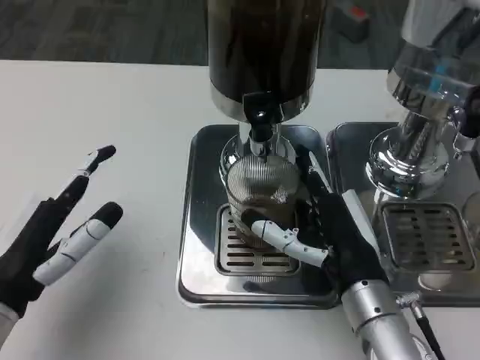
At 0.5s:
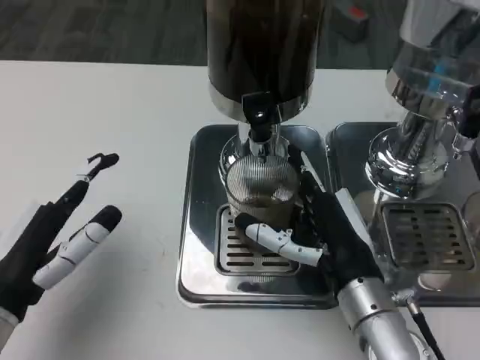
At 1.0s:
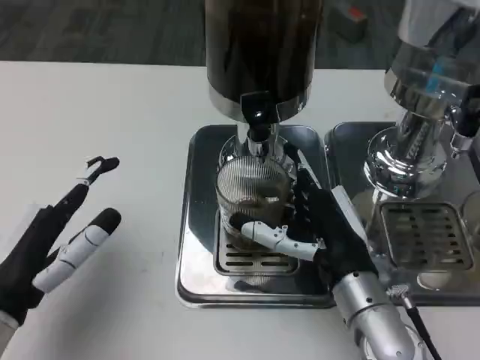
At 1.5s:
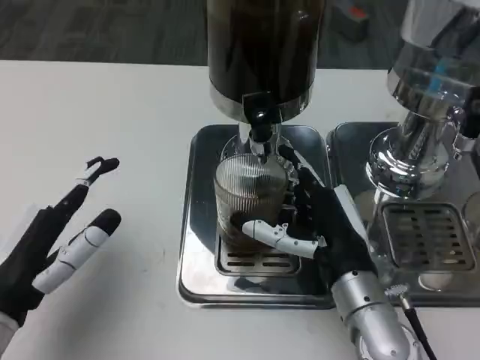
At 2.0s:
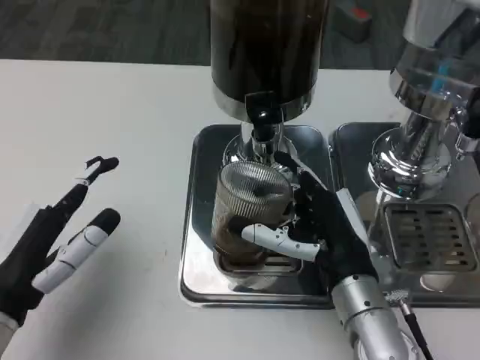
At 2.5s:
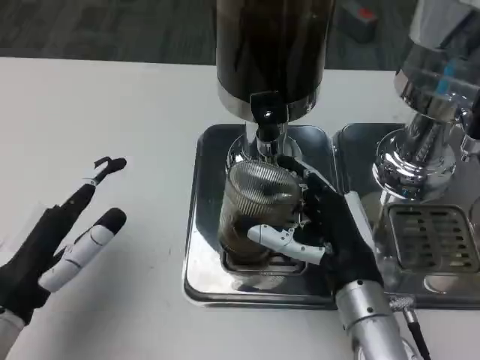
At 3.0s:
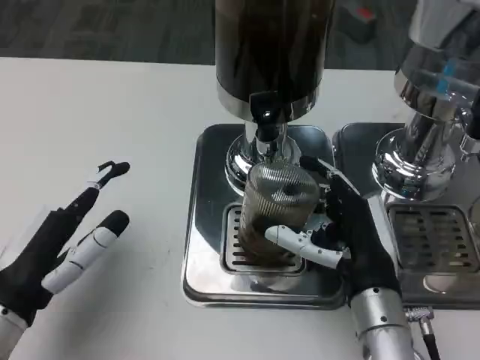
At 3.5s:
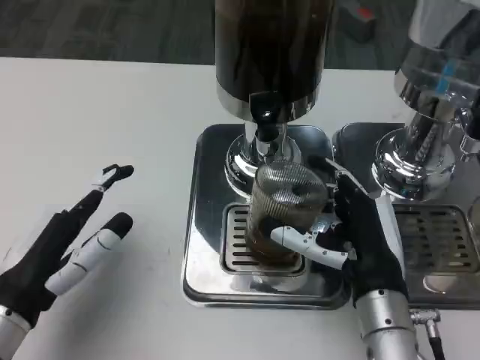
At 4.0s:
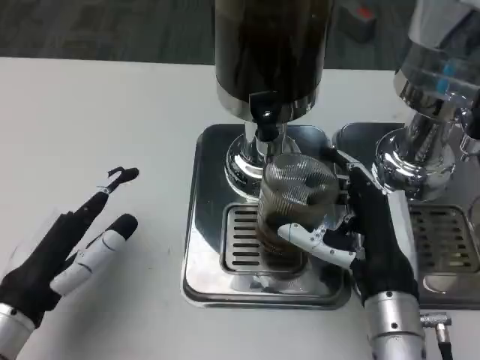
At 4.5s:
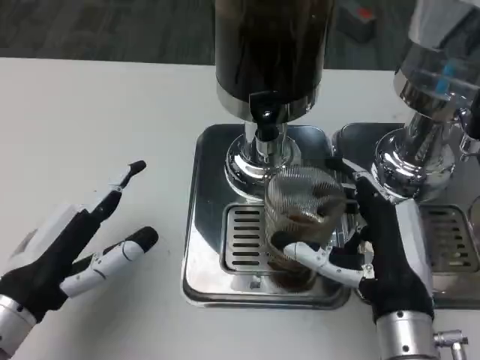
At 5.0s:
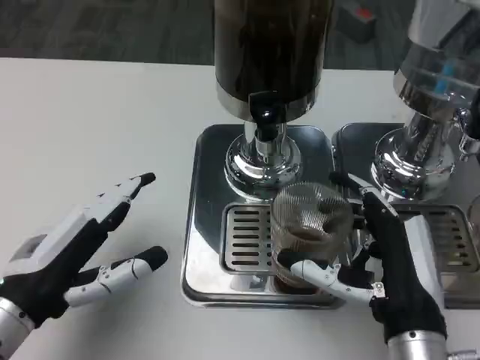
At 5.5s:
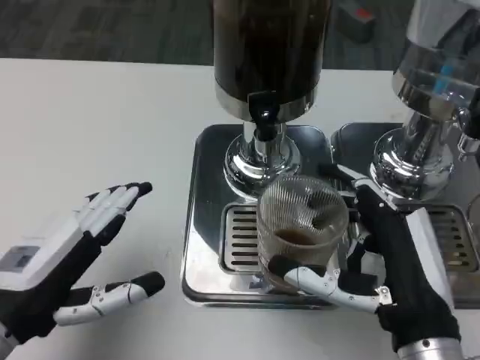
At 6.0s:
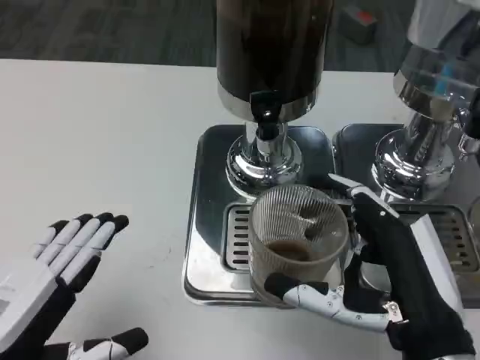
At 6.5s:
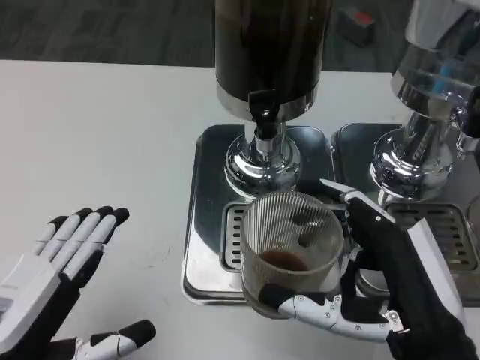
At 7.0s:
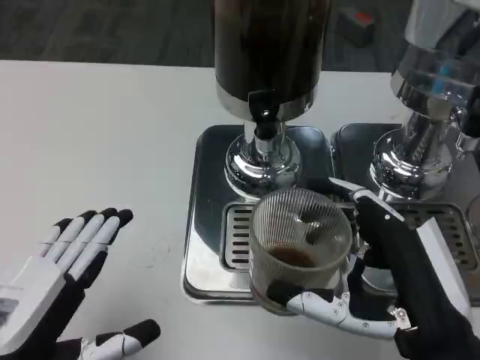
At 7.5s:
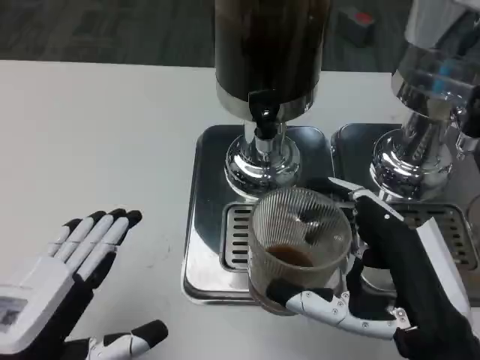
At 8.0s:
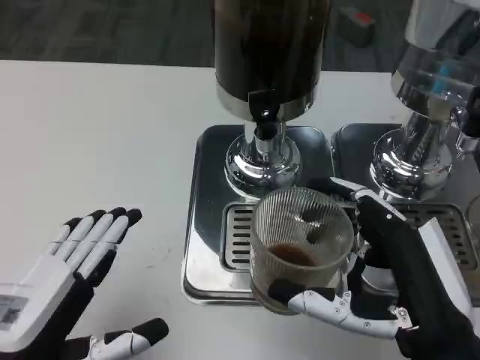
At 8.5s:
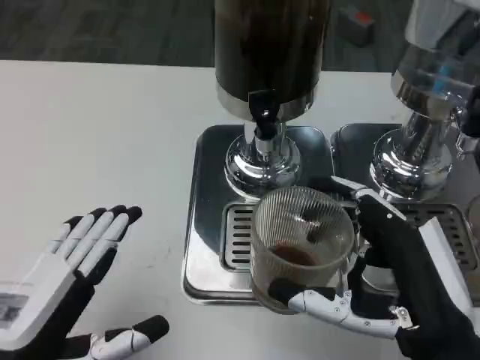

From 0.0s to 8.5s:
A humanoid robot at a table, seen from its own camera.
Task of the whole recording: Grasp the cup under the faucet to collect the drink, then remove the cup.
From 0.0s to 2.0s: Both hands stay put.
From 4.0s to 6.5s: The left hand goes some 10 cm backward. Meanwhile the right hand goes approximately 10 cm backward and upward.
From 6.5s to 8.5s: Neither hand changes place.

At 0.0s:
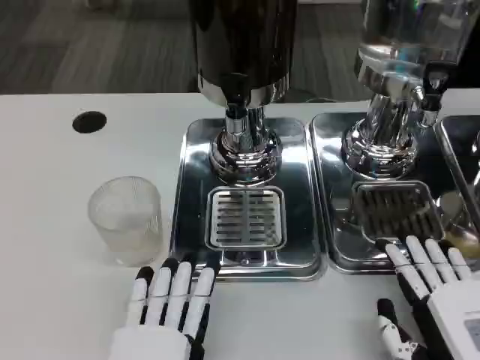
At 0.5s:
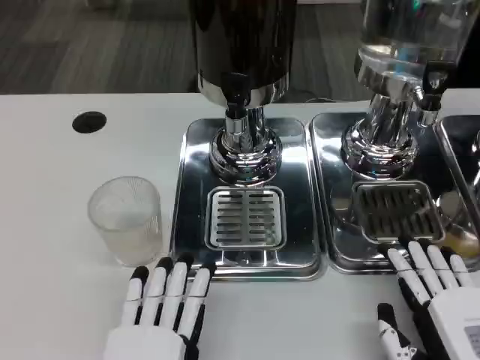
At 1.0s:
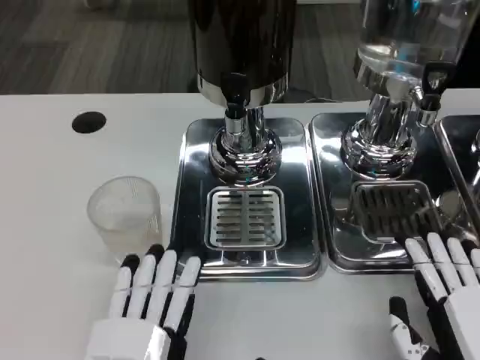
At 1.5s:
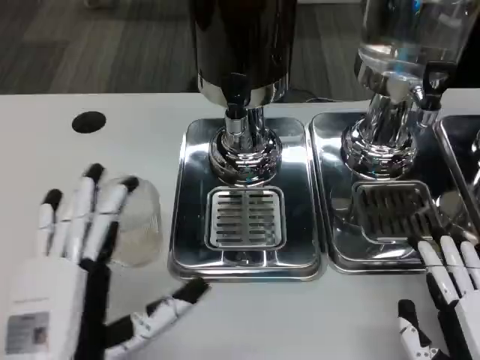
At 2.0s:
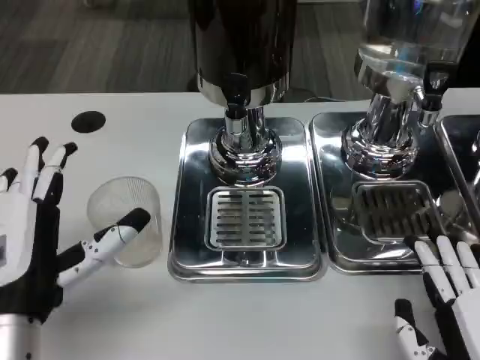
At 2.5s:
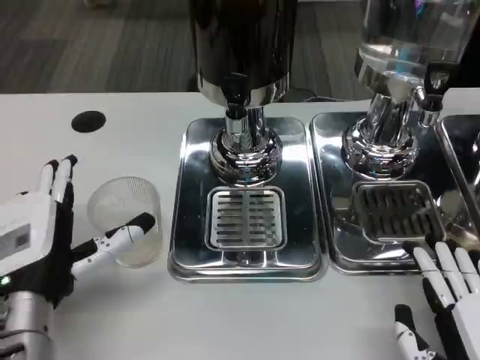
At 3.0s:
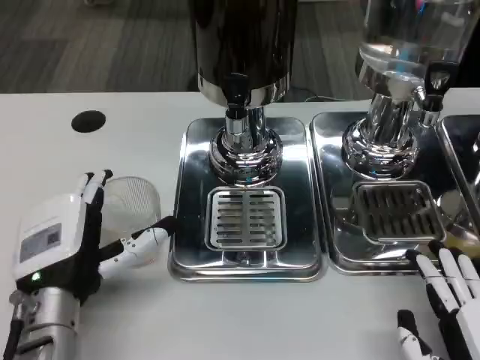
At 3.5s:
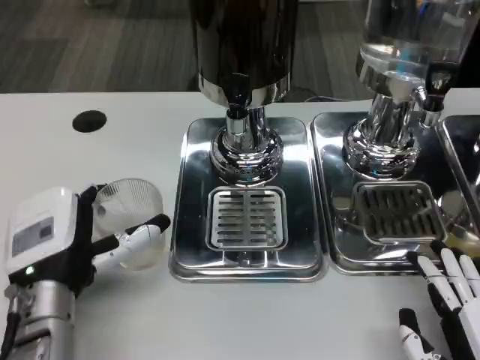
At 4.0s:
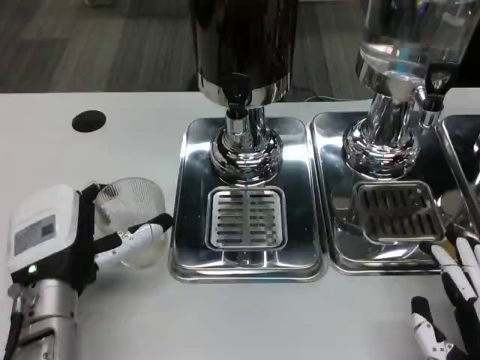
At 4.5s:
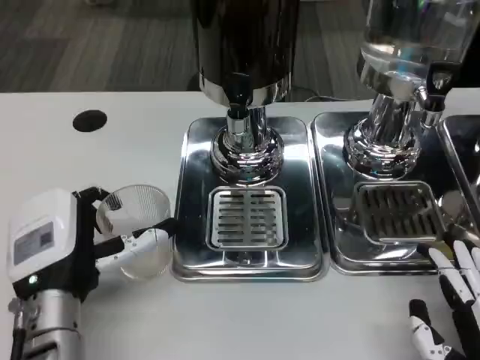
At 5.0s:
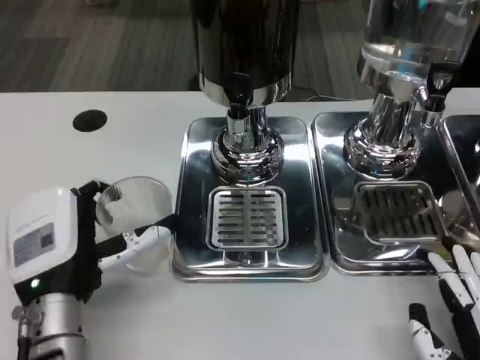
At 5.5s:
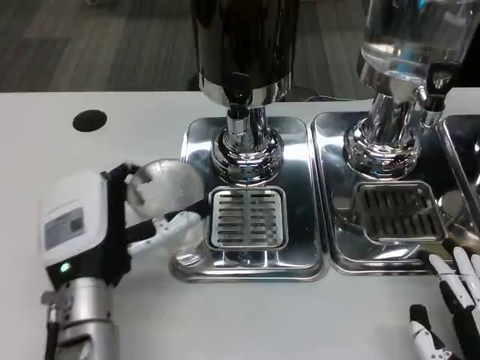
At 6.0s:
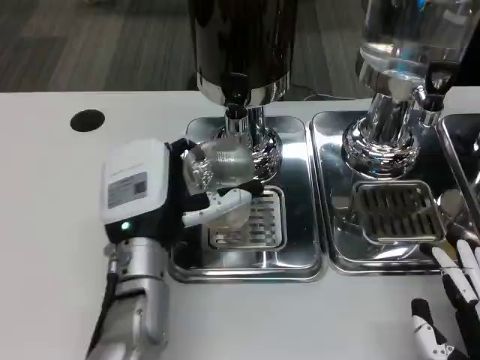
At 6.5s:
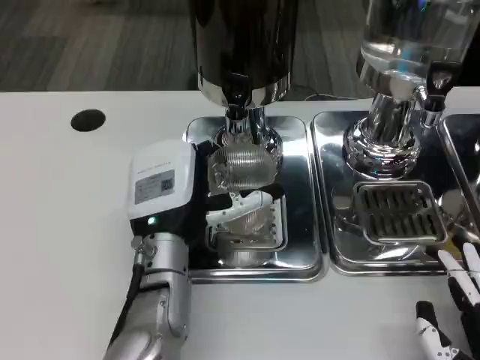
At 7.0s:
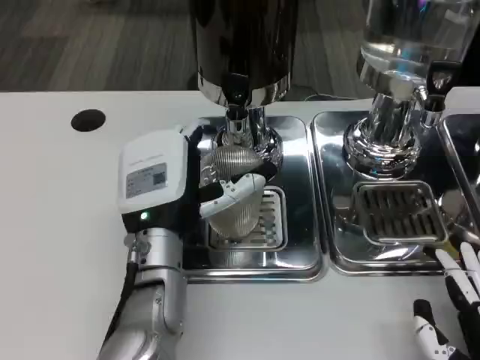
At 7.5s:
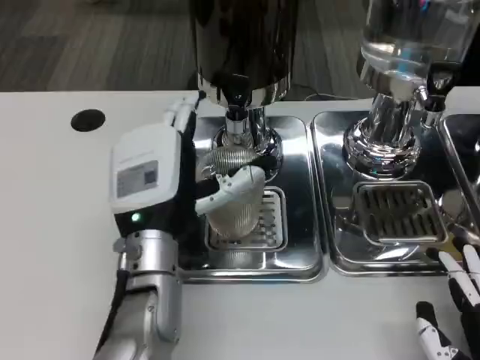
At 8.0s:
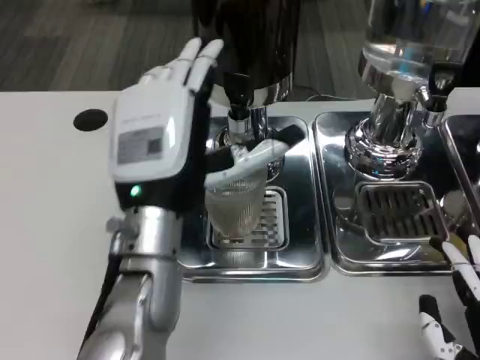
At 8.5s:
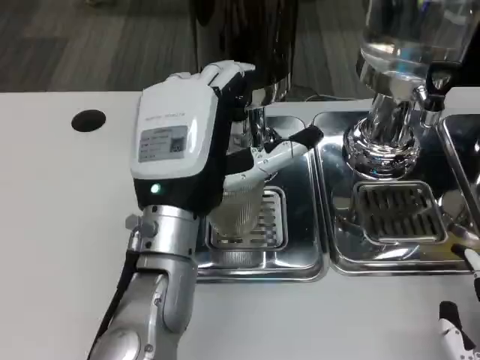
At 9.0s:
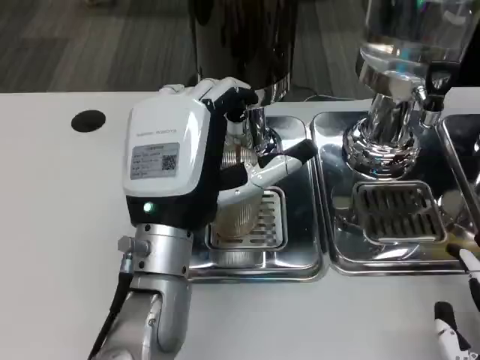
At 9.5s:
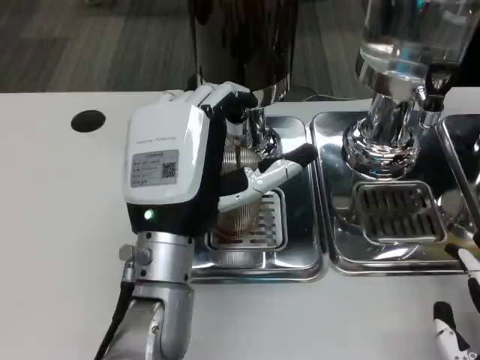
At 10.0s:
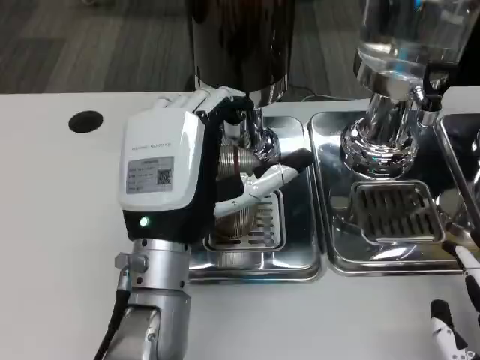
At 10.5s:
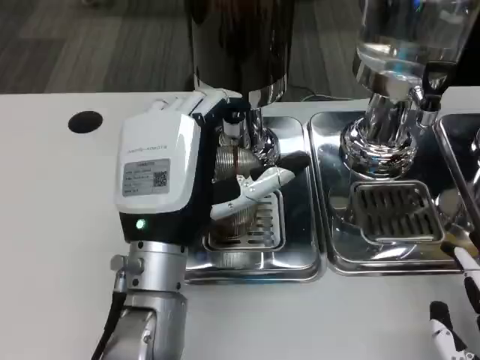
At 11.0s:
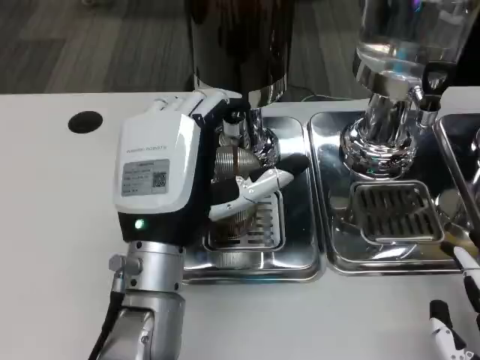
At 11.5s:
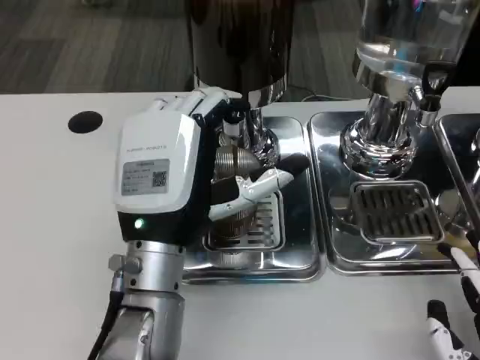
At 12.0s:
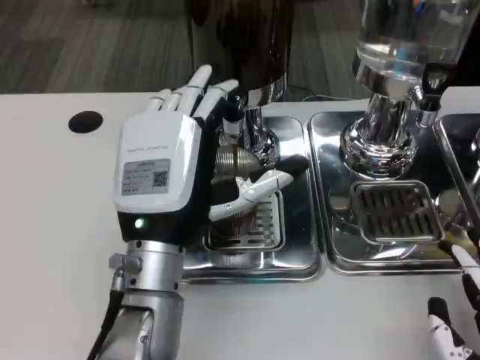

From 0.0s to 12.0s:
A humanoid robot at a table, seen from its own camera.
Task of the whole recording: Grasp the cup under the faucet to collect the drink, then remove the cup.
From 0.0s to 2.0s: The left hand travels forward, to the left and upward by approximately 15 cm.
From 2.0s to 4.0s: The hands stay close to where they were, moving slightly.
From 4.0s to 6.0s: The left hand goes roughly 10 cm to the right.
From 6.0s to 8.0s: The left hand is displaced upward by roughly 5 cm.
From 10.0s to 12.0s: Both hands stay put.

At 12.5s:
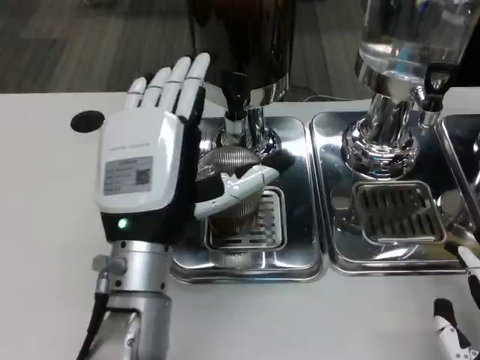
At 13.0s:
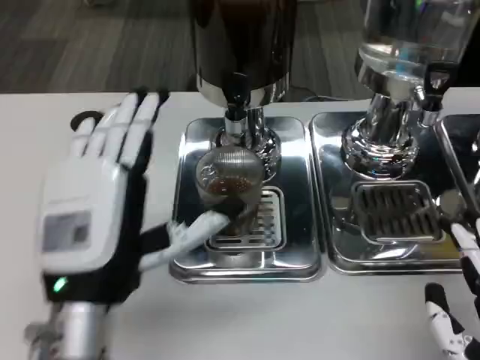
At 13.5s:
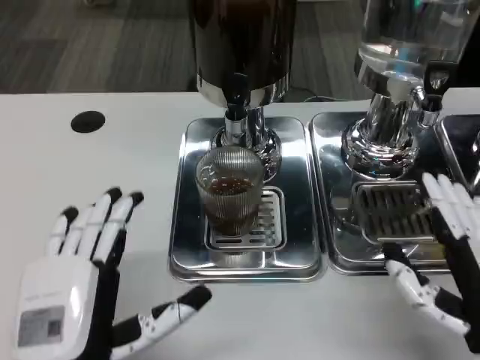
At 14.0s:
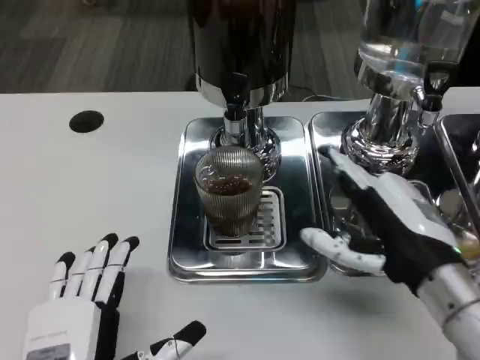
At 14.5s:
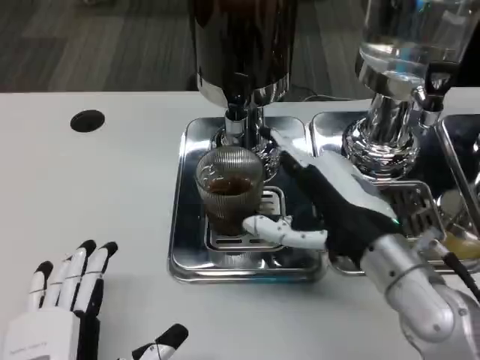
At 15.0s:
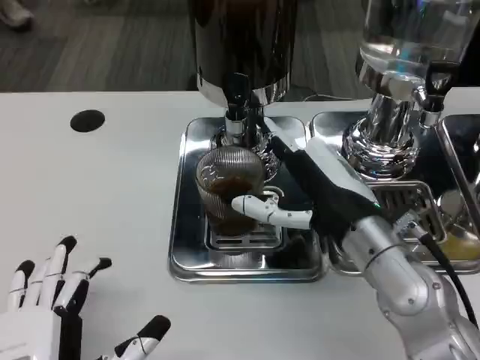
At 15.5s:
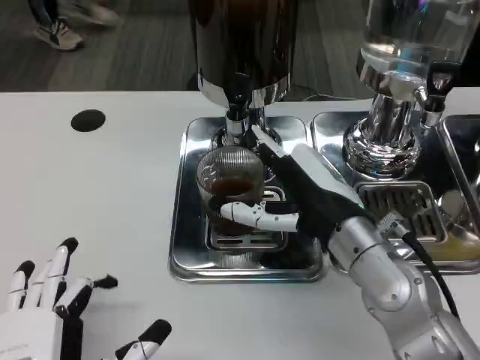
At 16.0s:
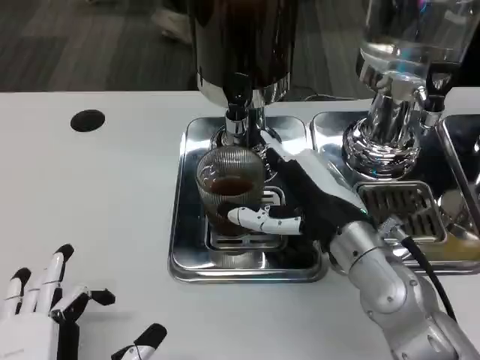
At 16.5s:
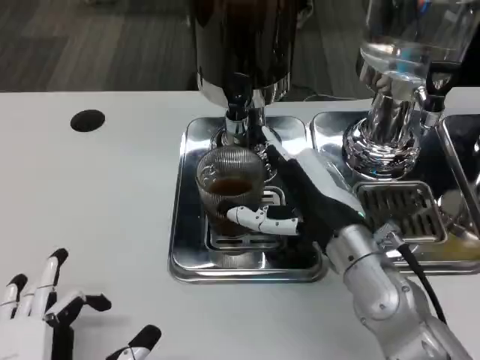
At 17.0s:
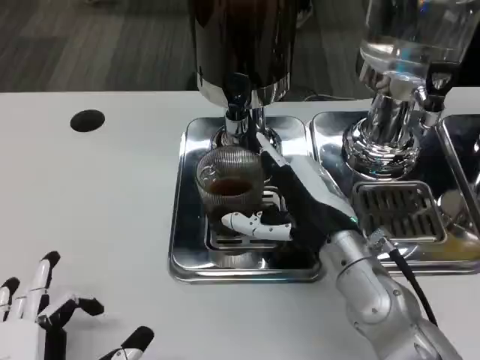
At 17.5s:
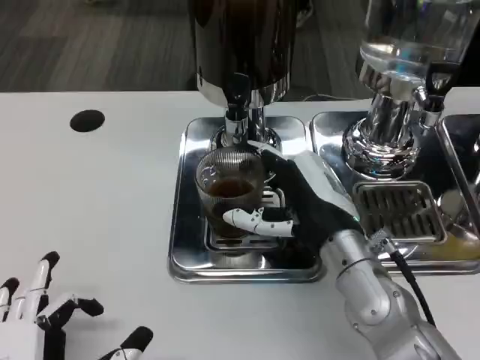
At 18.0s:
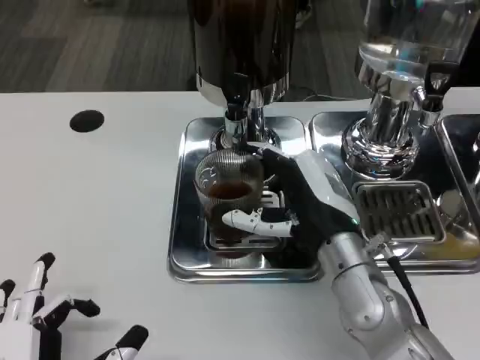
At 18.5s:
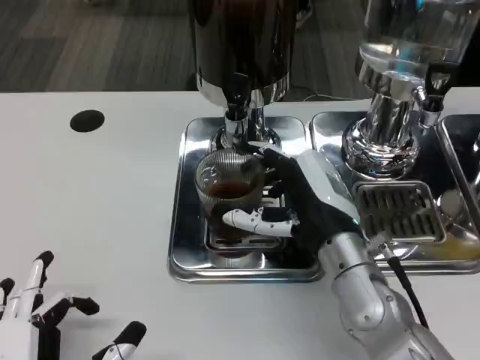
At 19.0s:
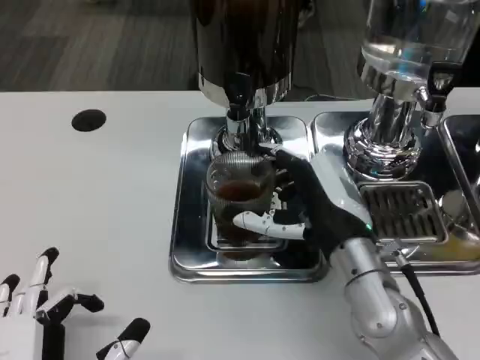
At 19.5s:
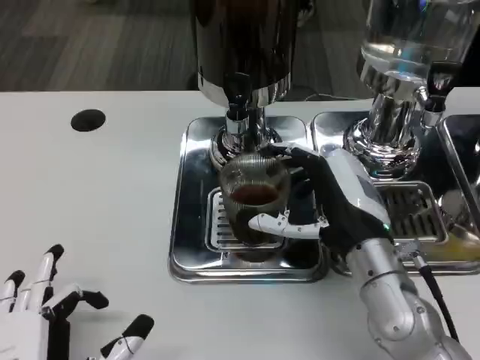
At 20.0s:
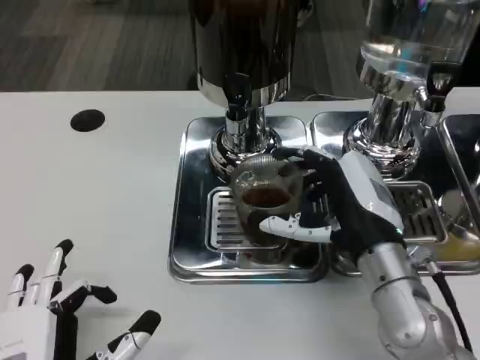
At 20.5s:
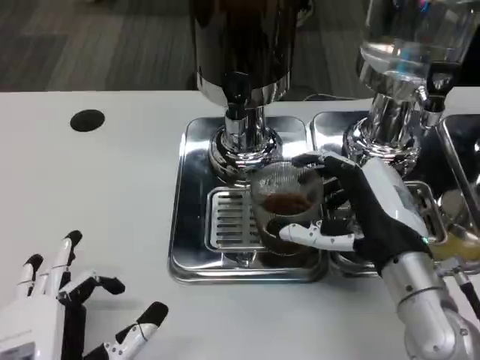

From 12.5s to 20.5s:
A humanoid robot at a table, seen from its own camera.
Task of the whole recording: Grasp the cup under the faucet to collect the drink, then remove the cup.
From 12.5s to 14.5s: The left hand shifts roughly 20 cm backward, downward and to the left. Meanwhile the right hand goes about 20 cm forward, to the left and upward.
From 14.5s to 16.5s: The right hand shifts by about 5 cm.
From 16.5s to 18.5s: The hands move only a little.
From 18.5s to 20.5s: The right hand heads to the right, covering some 5 cm.
